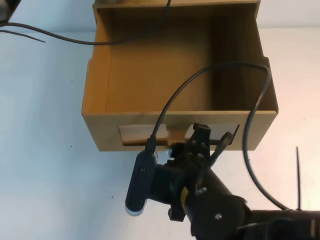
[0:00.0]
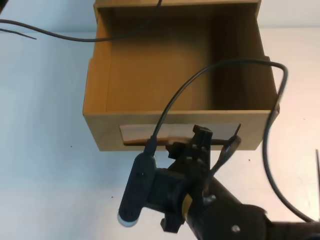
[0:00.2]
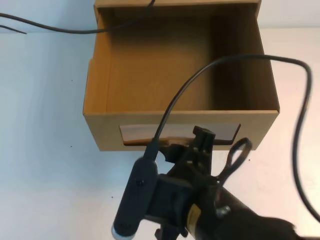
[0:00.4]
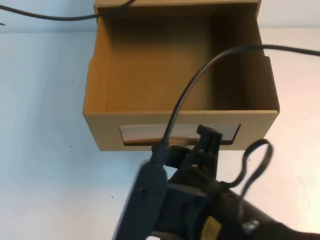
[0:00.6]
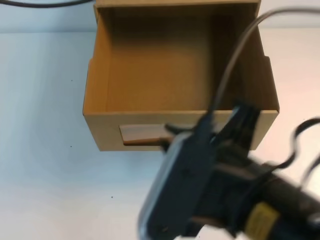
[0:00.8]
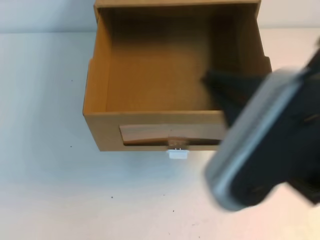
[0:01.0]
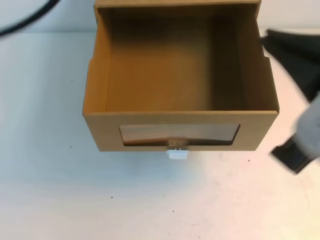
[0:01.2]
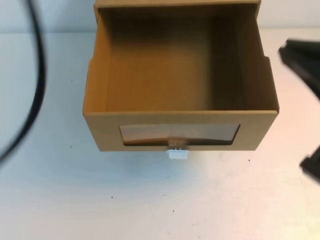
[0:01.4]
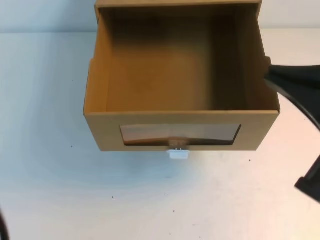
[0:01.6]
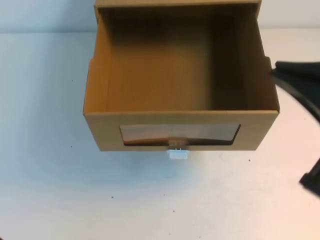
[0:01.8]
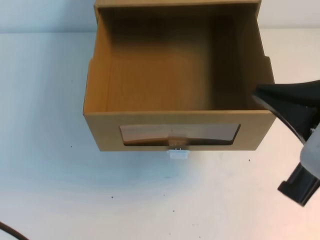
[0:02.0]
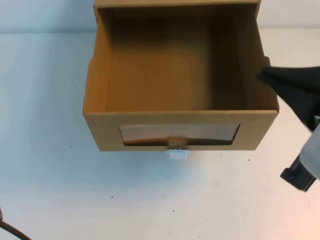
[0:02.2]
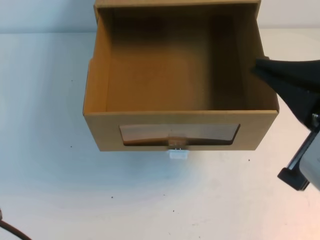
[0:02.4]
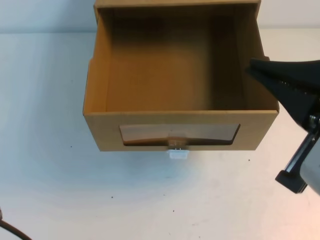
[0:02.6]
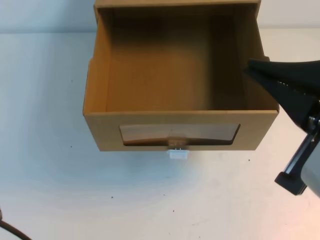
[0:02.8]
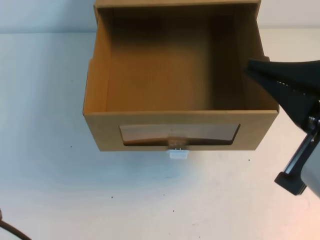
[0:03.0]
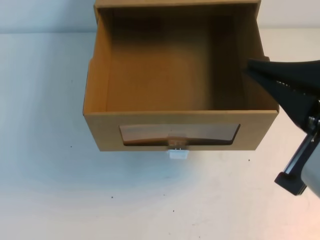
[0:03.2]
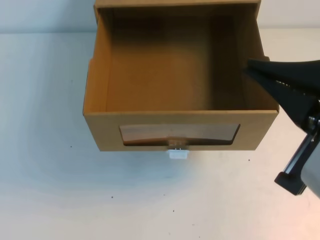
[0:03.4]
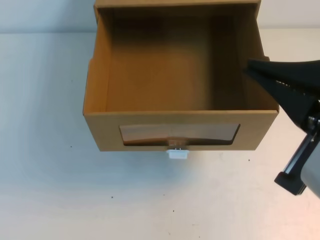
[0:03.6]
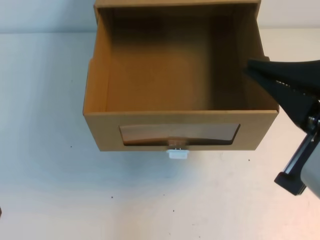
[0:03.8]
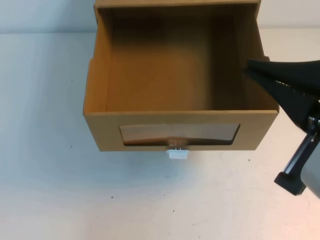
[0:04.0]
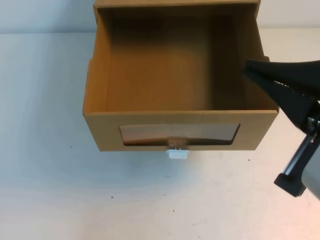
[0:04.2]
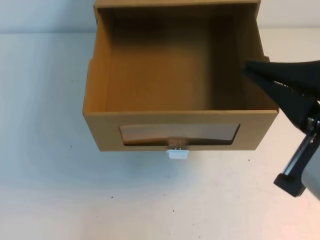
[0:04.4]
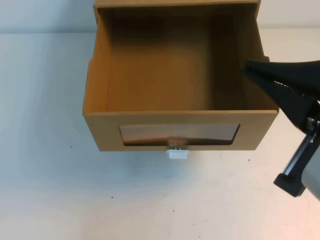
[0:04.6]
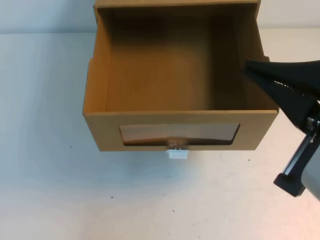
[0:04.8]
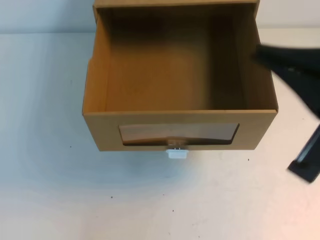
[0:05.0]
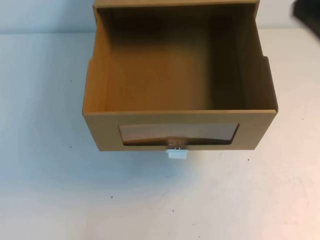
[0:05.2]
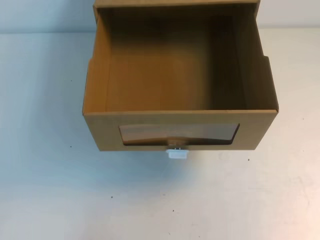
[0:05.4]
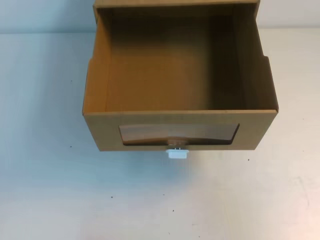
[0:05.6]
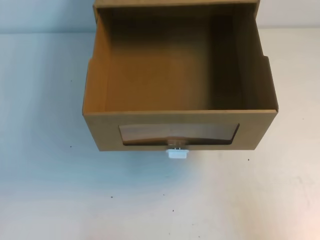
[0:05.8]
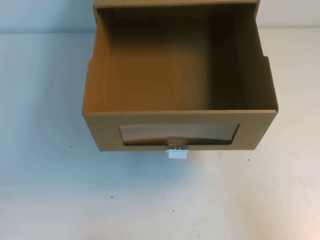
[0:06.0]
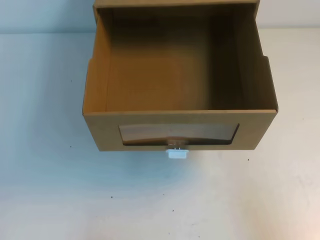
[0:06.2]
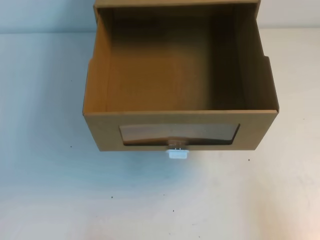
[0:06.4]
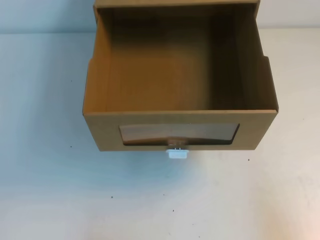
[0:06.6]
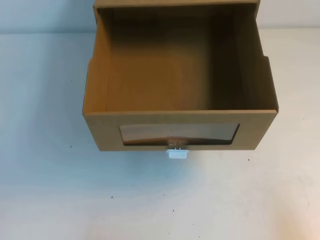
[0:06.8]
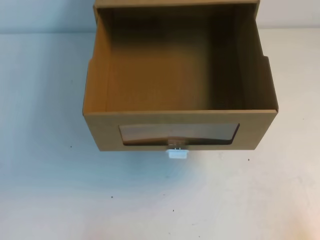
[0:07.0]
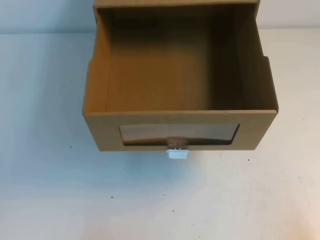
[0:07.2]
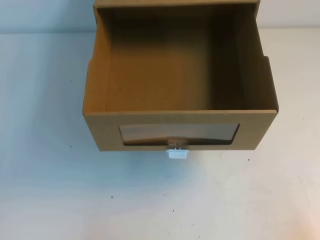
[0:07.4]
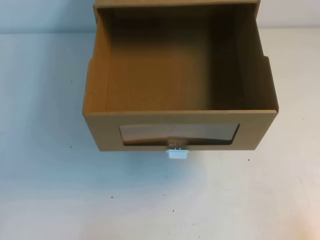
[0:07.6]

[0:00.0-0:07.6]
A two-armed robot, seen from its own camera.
Task of the whole recording: open the shoebox on the table.
Step, 0:00.0 to 0:07.6: Open the shoe box.
0:00.0 to 0:01.6: The left gripper shifts approximately 35 cm backward. The right gripper is displaced upward, to the right and backward by approximately 25 cm, and closes up.
0:04.6 to 0:06.0: The right gripper heads downward and to the right, covering some 20 cm.

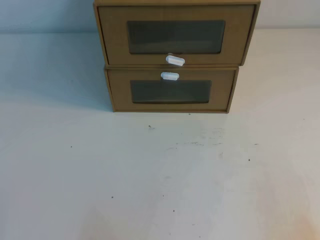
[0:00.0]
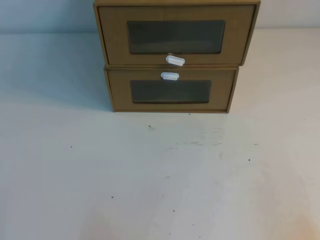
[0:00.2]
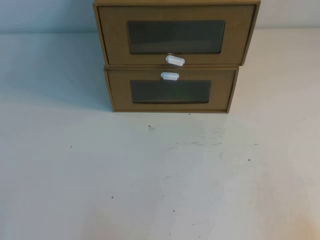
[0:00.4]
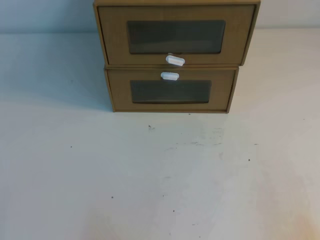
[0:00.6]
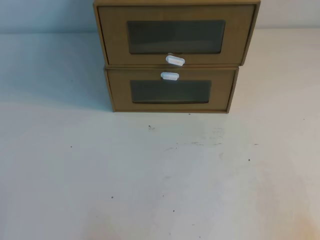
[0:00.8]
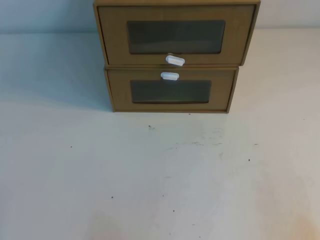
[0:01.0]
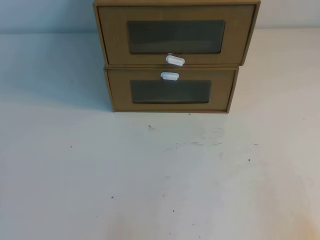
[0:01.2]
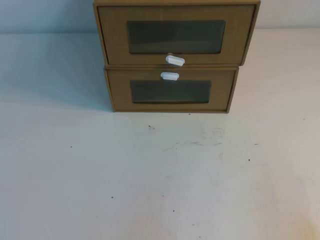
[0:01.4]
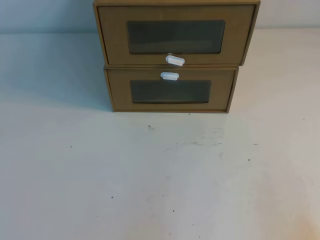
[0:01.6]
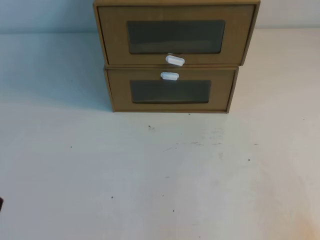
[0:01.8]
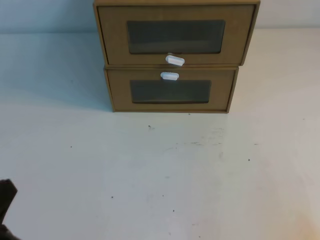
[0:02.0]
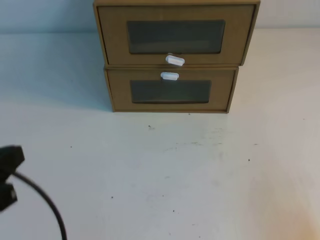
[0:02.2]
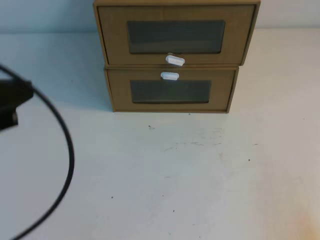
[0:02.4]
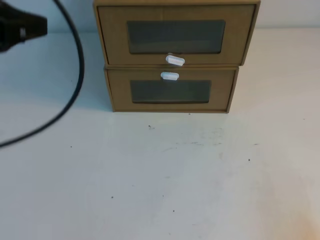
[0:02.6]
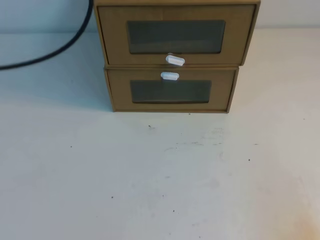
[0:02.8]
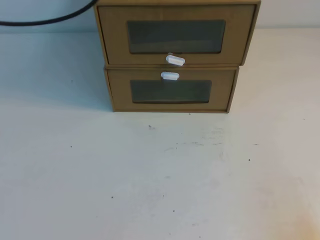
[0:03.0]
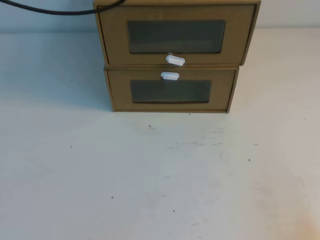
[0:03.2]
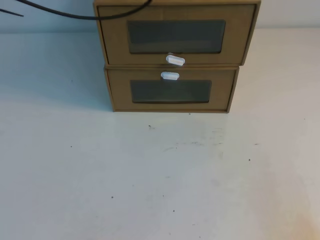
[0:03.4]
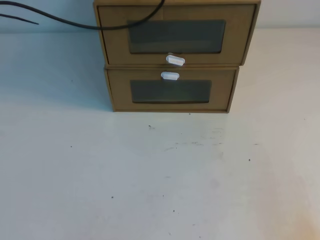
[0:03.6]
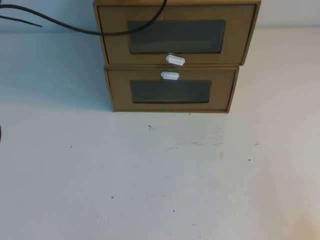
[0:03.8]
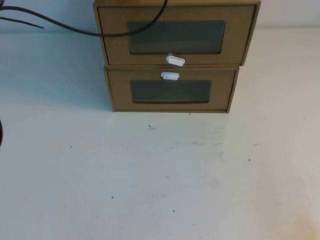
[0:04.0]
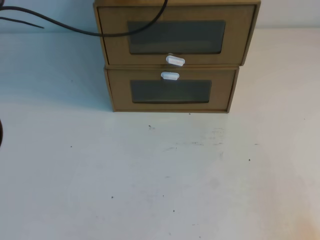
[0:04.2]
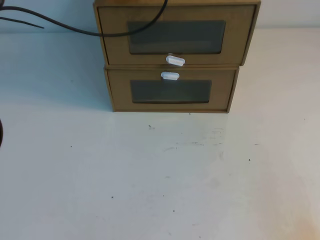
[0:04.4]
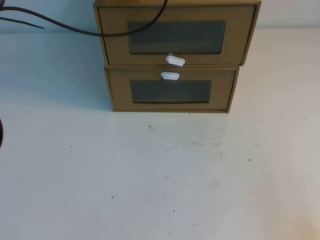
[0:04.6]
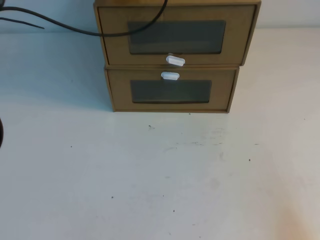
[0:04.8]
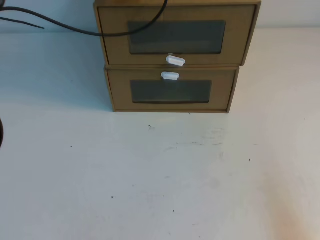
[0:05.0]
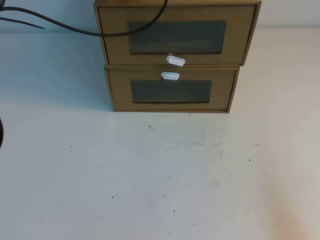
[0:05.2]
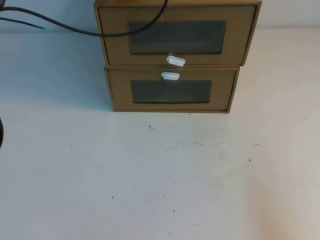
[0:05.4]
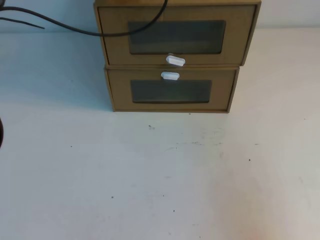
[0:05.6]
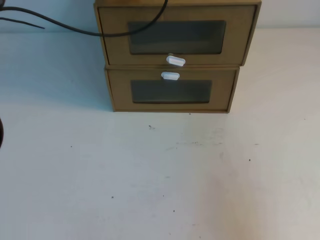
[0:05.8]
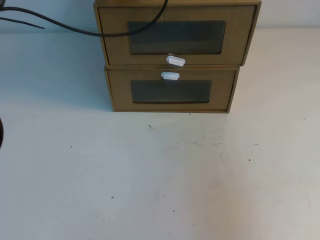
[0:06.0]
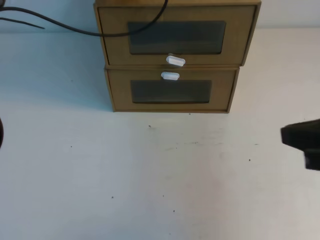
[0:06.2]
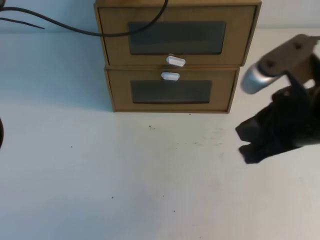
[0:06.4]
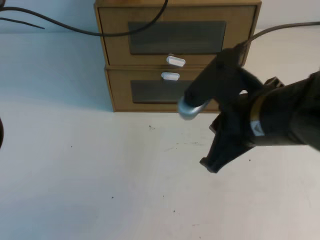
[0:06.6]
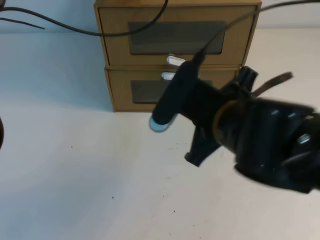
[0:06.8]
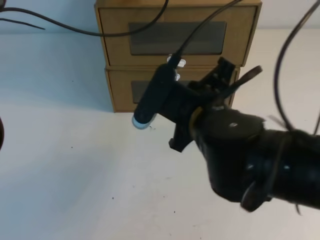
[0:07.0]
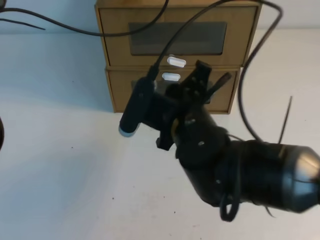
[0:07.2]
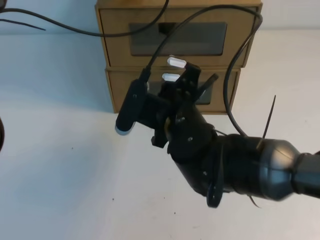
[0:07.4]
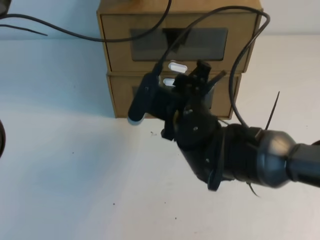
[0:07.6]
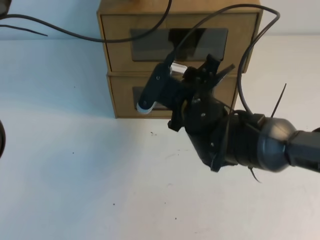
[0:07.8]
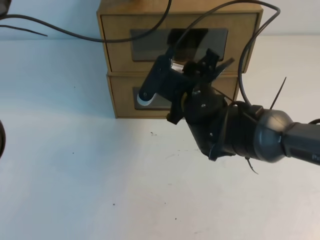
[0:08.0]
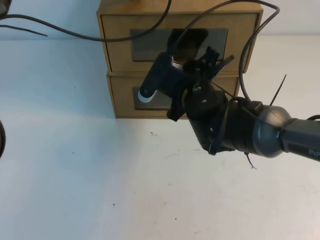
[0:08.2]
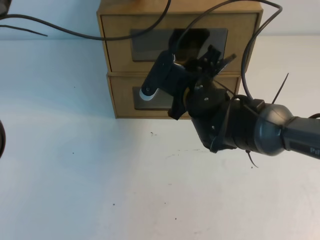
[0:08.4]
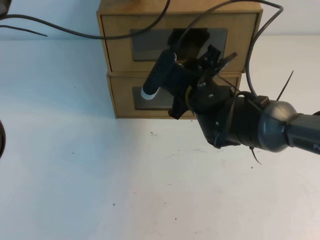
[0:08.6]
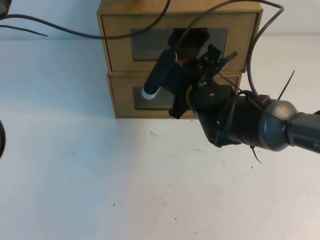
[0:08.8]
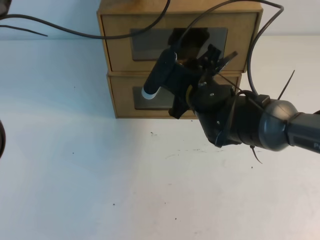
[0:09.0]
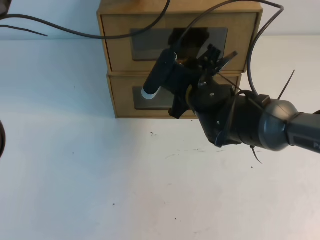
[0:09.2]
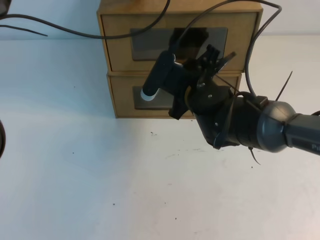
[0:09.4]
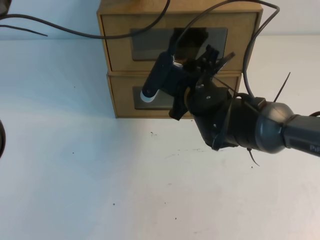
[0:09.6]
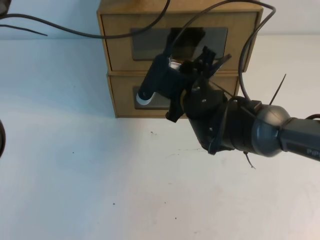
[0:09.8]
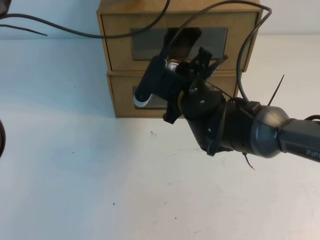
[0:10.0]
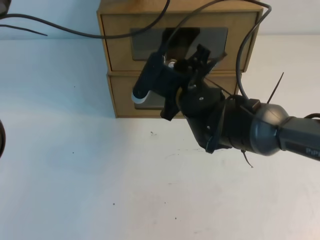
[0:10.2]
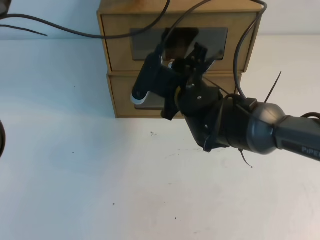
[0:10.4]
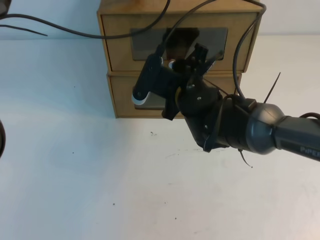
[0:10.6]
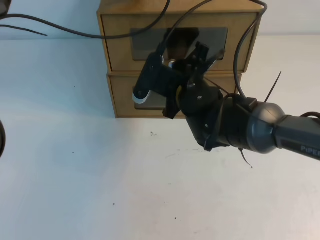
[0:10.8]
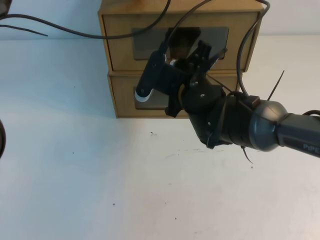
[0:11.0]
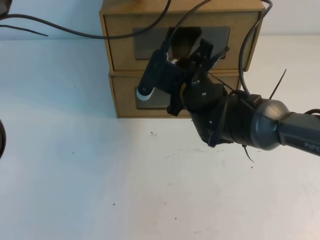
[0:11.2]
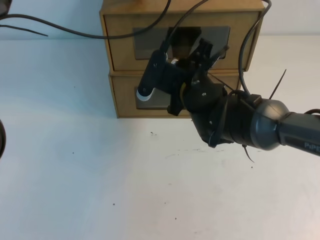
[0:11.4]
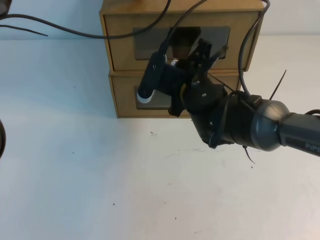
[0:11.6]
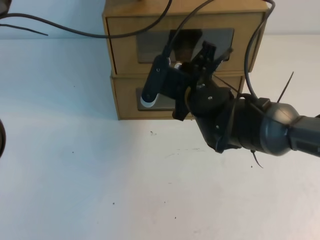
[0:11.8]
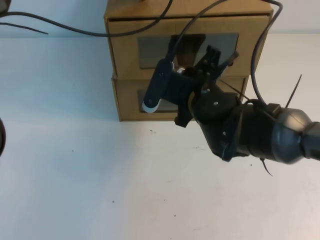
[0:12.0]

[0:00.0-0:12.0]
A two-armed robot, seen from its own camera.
Task of the whole recording: open the shoebox on the table.
0:01.6 to 0:03.0: The left gripper moves upward and forward, approximately 40 cm.
0:03.0 to 0:04.4: The left gripper shifts some 20 cm forward, downward and to the right.
0:04.4 to 0:06.0: The right gripper heads upward, covering some 15 cm.
0:06.0 to 0:07.6: The right gripper travels to the left and forward by approximately 30 cm, and opens its fingers.
0:07.6 to 0:09.0: The right gripper heads forward, covering about 10 cm.
0:09.0 to 0:10.4: The grippers move only a little.
0:10.4 to 0:12.0: The right gripper closes.

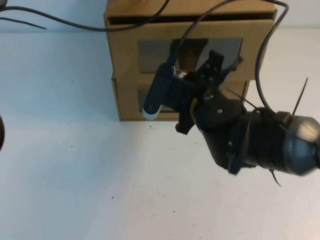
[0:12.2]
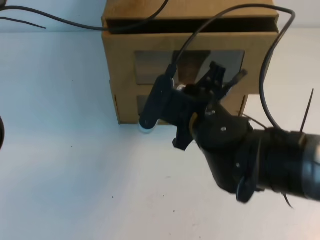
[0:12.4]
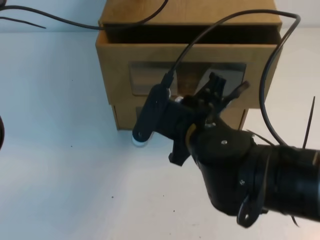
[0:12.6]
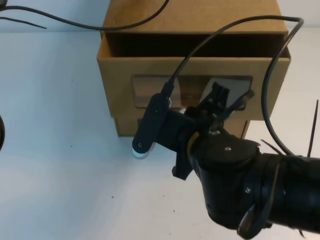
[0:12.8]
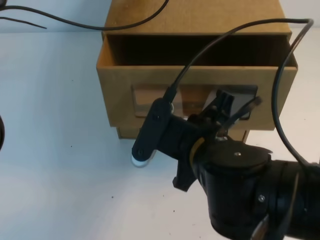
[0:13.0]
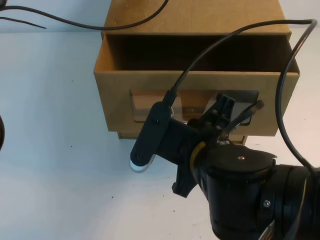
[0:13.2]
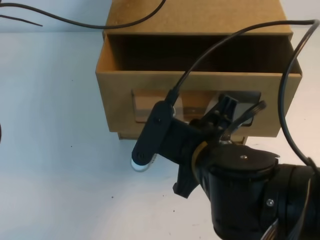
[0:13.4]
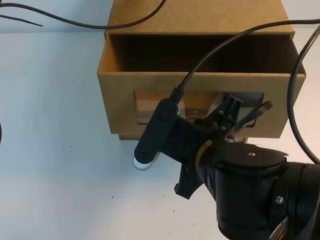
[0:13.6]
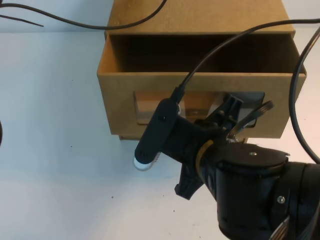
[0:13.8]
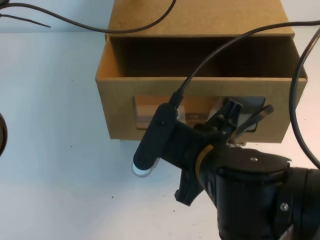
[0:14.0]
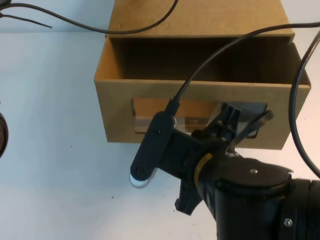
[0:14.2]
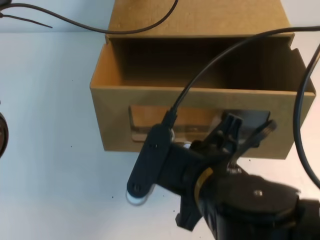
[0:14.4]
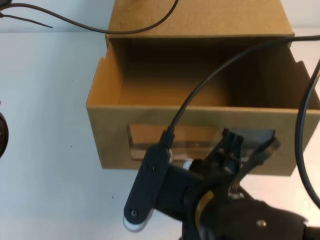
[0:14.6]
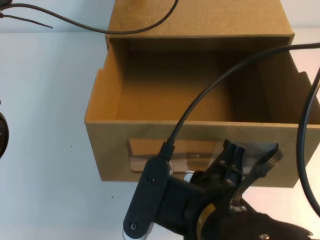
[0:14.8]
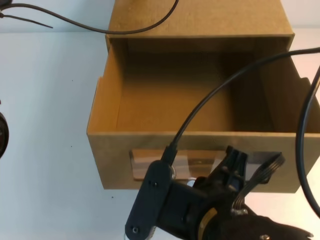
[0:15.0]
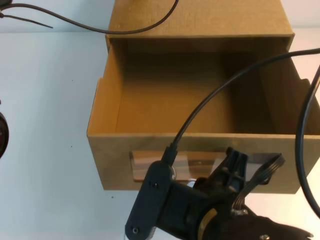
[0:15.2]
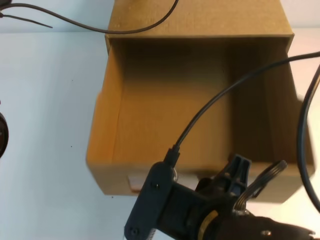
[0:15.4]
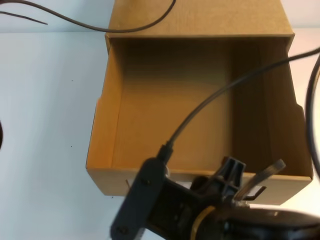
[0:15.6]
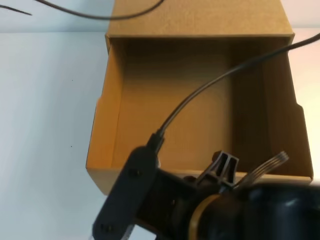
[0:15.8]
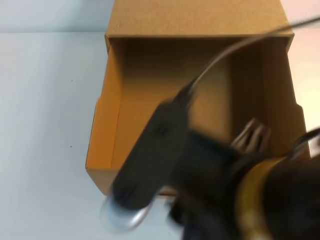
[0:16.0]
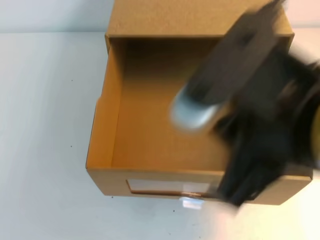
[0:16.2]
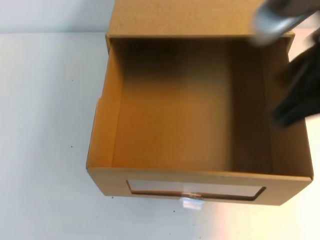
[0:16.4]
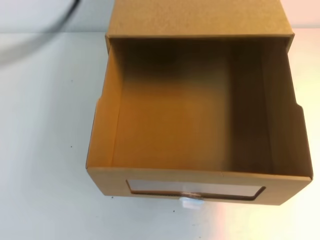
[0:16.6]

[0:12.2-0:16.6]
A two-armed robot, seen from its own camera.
Task of the whole recording: open the shoebox on the table.
0:12.2 to 0:13.6: The right gripper is displaced backward by approximately 15 cm.
0:13.6 to 0:15.2: The right gripper heads backward, covering approximately 10 cm.
0:15.2 to 0:16.6: The left gripper heads backward and upward, covering approximately 30 cm; the right gripper is displaced upward, to the right and forward by about 20 cm, and opens, then closes again.
